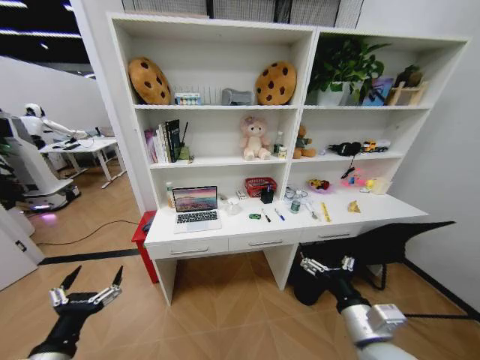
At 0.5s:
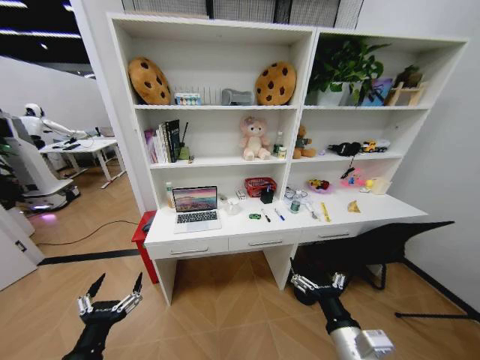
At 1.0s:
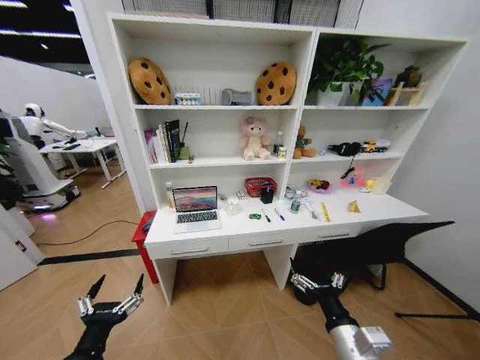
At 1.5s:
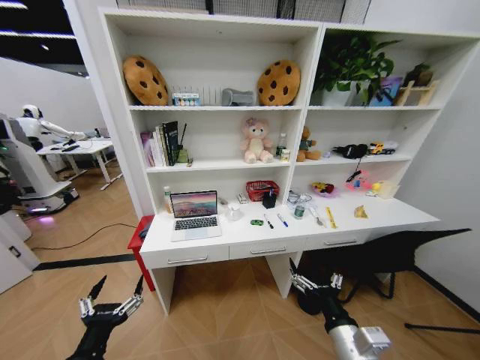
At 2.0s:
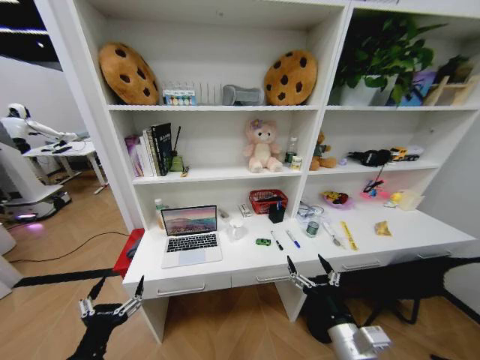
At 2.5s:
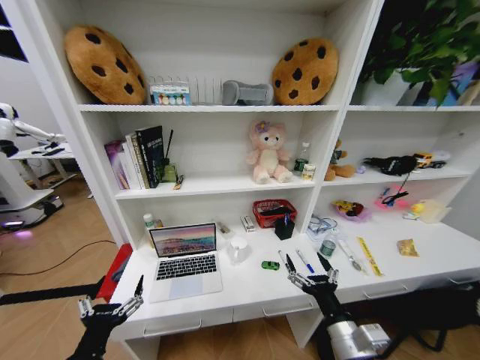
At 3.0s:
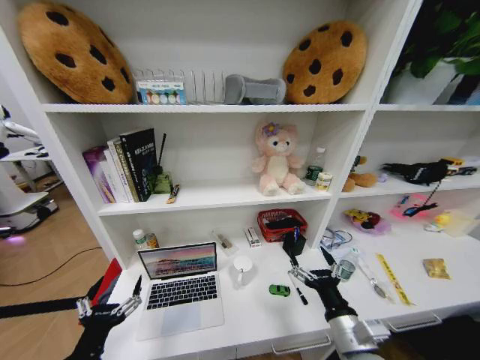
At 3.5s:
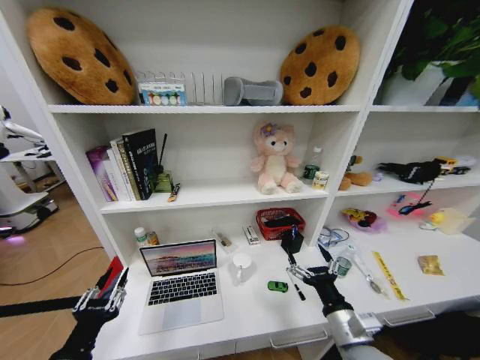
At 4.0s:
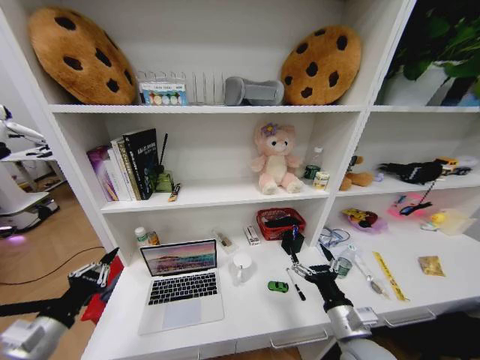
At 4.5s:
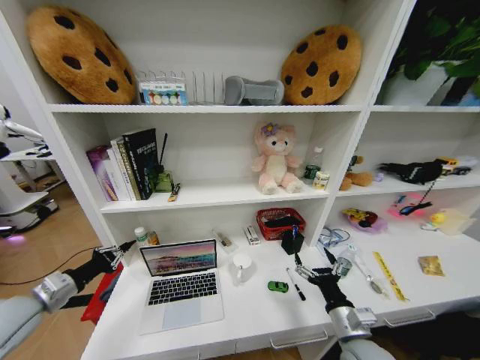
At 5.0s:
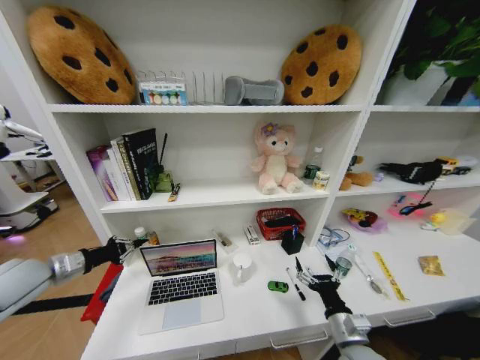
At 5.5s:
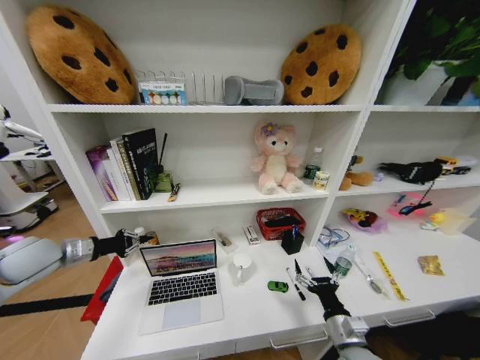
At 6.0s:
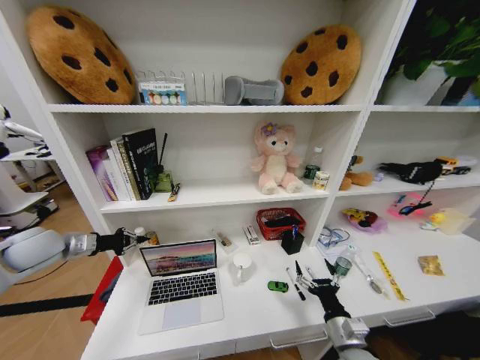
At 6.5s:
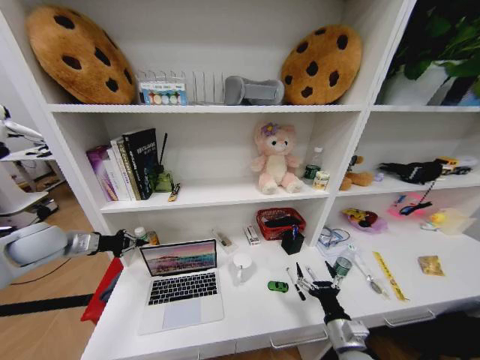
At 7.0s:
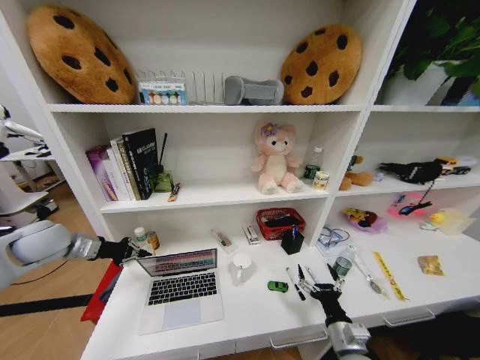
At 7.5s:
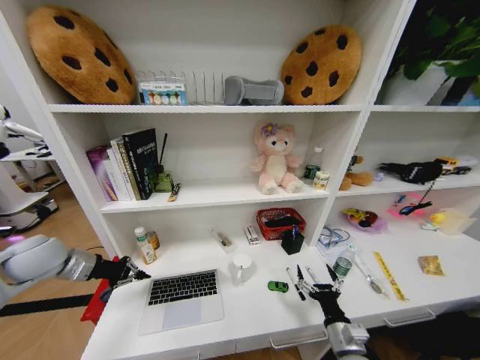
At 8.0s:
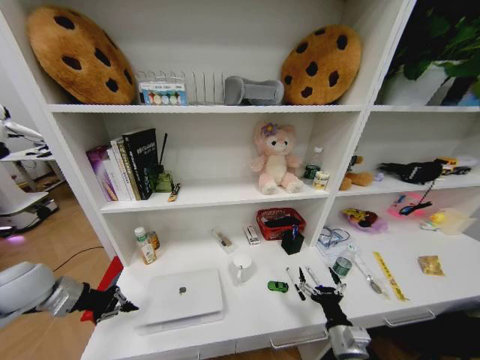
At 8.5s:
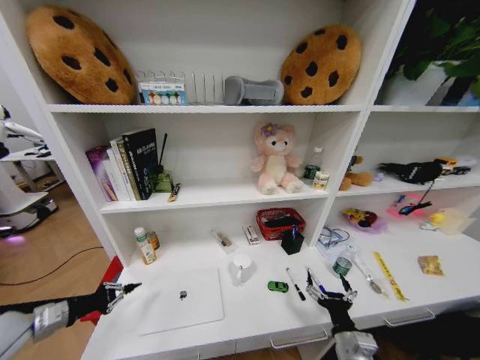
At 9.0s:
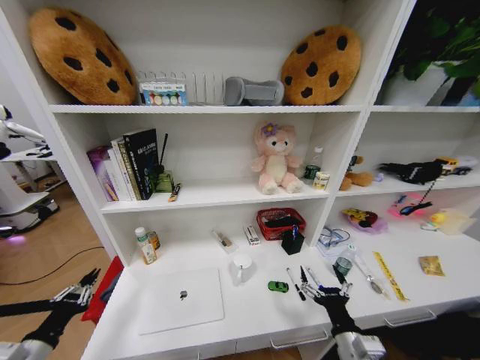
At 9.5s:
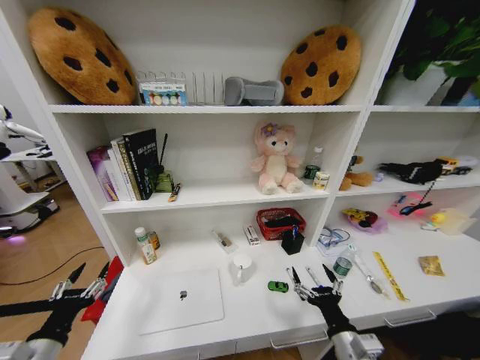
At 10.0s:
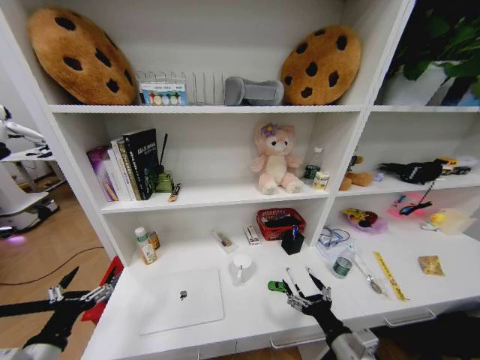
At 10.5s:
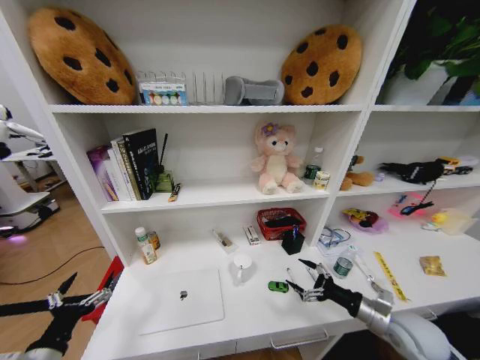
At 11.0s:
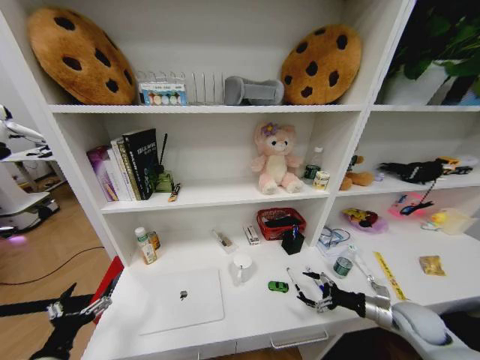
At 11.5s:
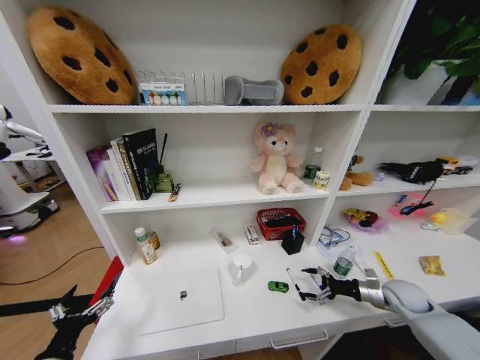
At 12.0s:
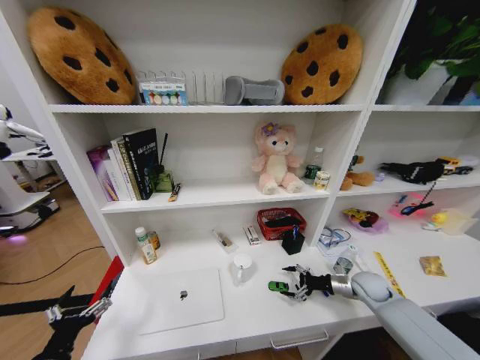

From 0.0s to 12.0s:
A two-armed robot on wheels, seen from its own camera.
Task of the whole recording: Organize the objects on the table.
From 2.0s to 4.0s: The right gripper changes place by some 5 cm. Meanwhile the left gripper heads to the left and forward, covering roughly 10 cm, and closes.
From 4.0s to 6.0s: The left gripper travels forward by roughly 25 cm, while the right gripper is displaced downward by some 5 cm.
From 6.0s to 8.0s: The left gripper moves backward, about 5 cm.
From 8.0s to 10.0s: The right gripper shifts roughly 5 cm upward. Meanwhile the left gripper shifts some 20 cm backward and to the right, and opens up.
From 10.0s to 12.0s: The right gripper shifts roughly 30 cm forward and to the right.

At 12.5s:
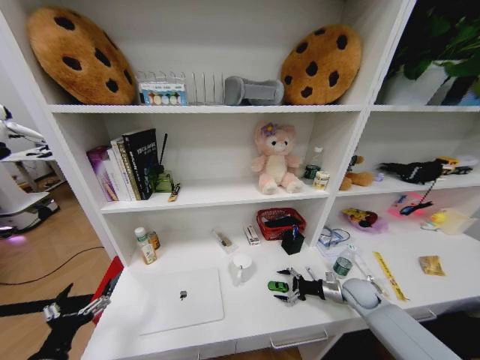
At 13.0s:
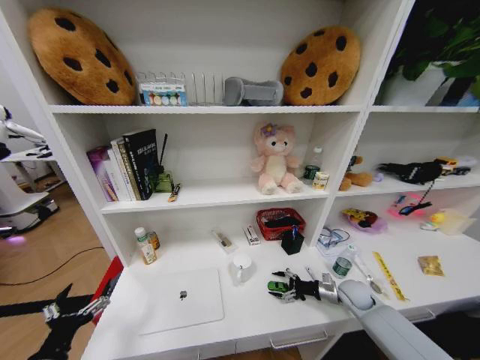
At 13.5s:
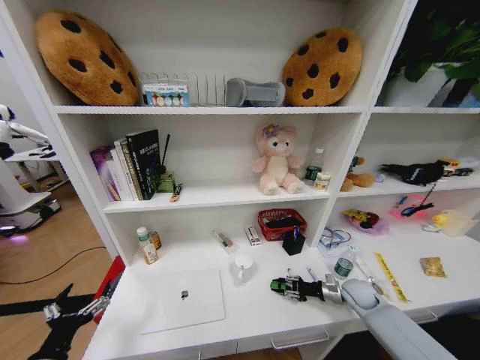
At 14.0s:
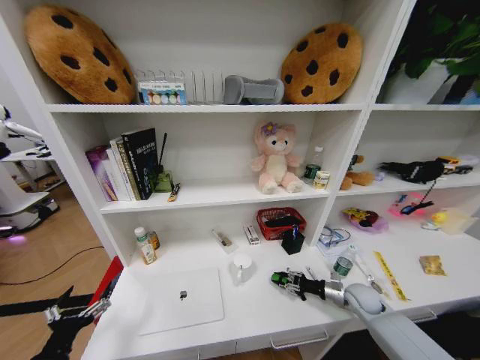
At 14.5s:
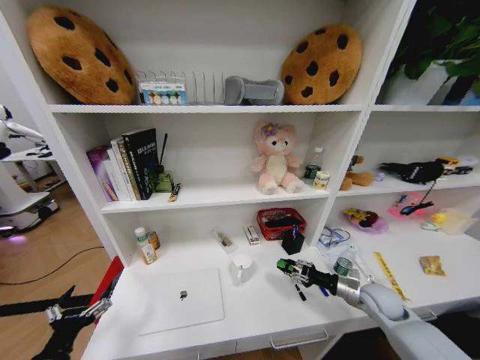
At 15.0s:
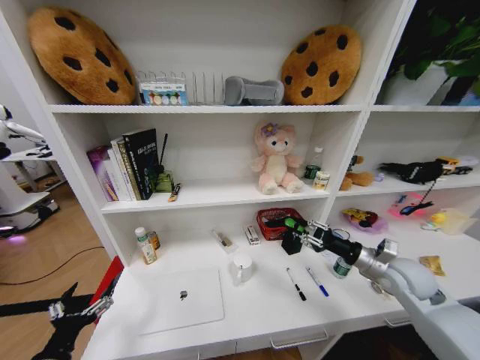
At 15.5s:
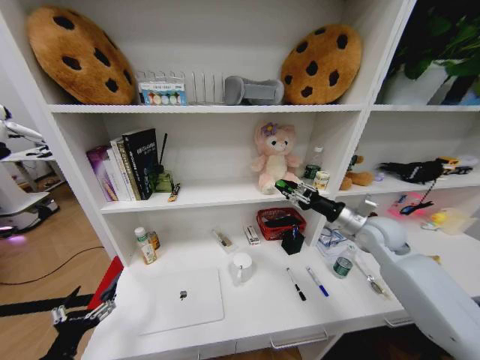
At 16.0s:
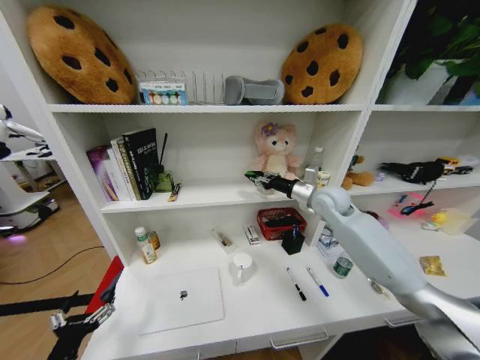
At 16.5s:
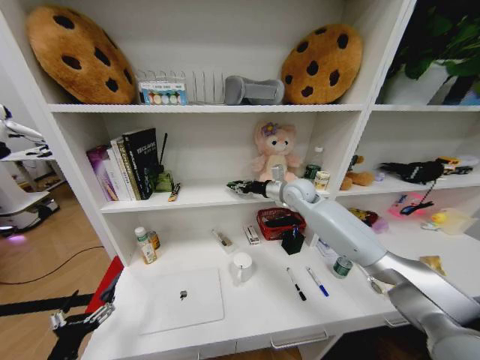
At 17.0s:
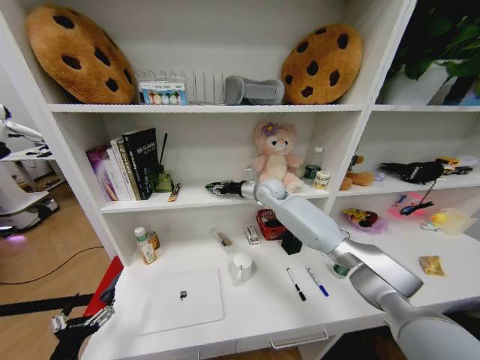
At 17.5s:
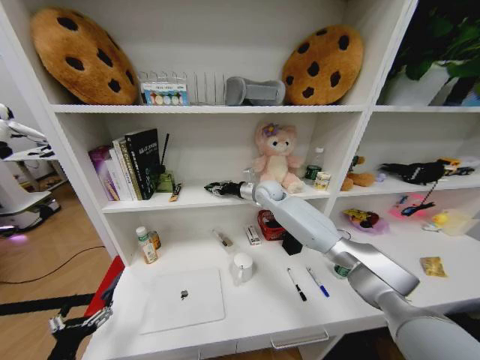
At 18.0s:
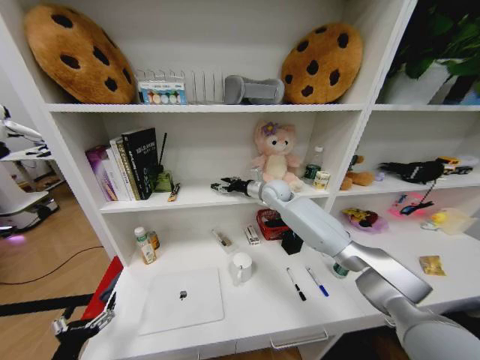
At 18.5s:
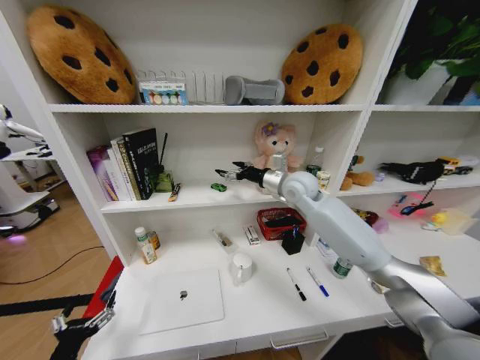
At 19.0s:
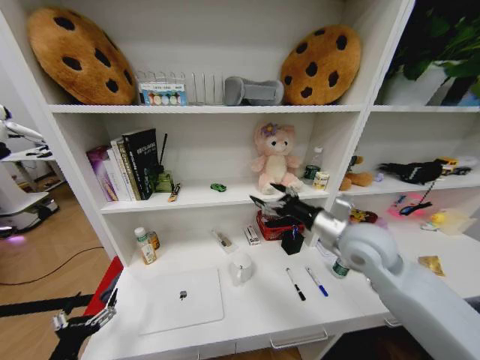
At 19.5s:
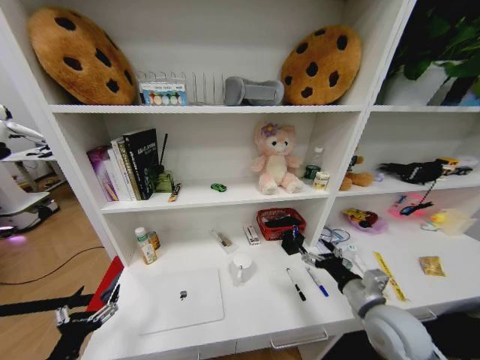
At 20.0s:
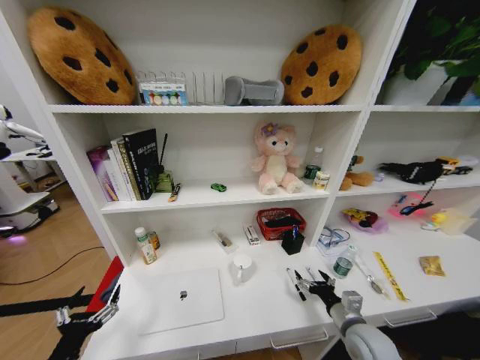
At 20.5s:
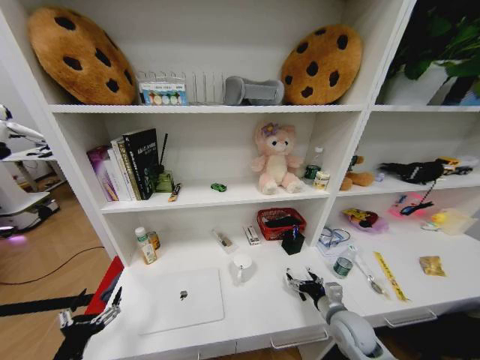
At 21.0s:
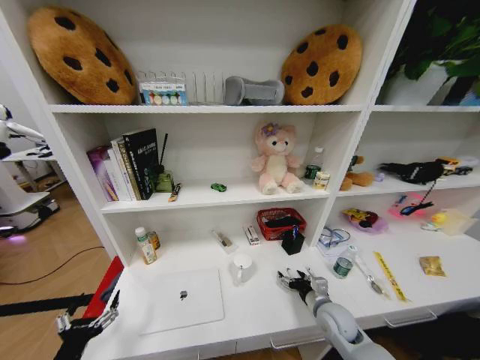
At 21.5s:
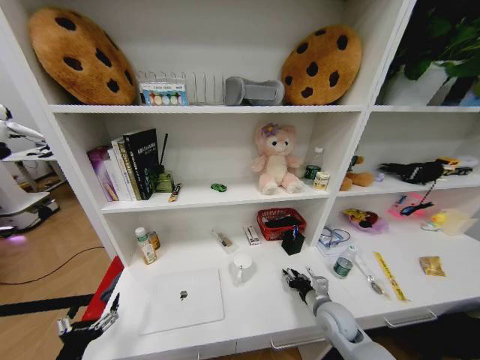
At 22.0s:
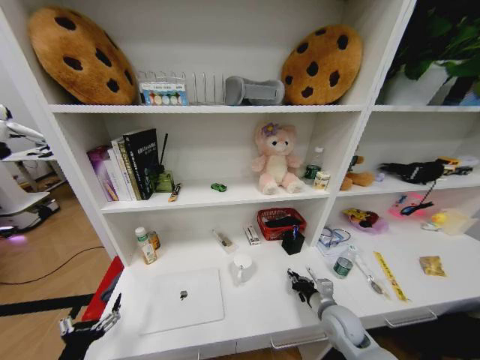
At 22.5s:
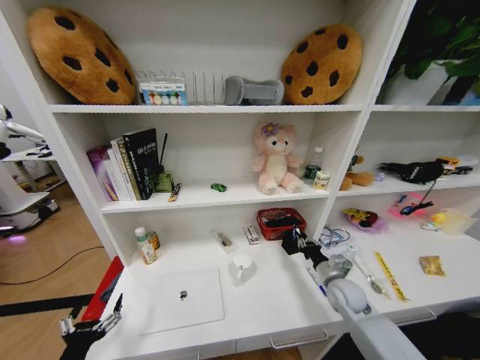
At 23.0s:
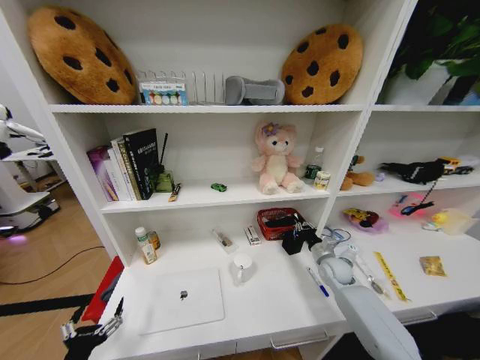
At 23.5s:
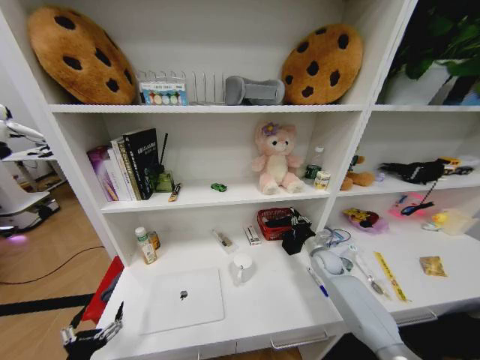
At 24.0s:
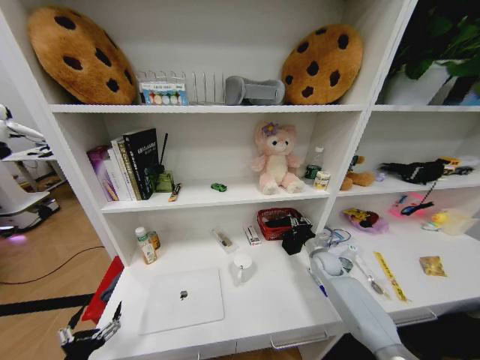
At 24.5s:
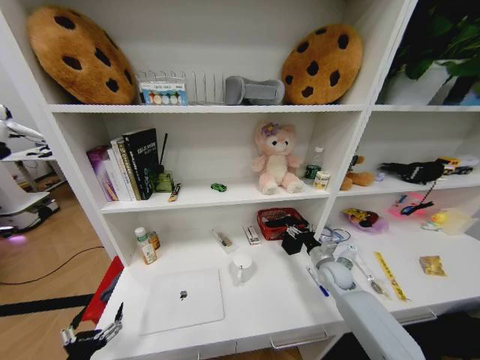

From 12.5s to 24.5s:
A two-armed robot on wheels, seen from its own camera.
Task of the whole recording: Organize the objects on the table.
From 12.5s to 14.5s: The right gripper travels upward by approximately 5 cm, and closes.
From 14.5s to 16.5s: The right gripper travels forward, upward and to the left by roughly 40 cm.
From 16.5s to 18.5s: The right gripper opens its fingers.
From 18.5s to 20.5s: The right gripper heads downward, backward and to the right, covering some 40 cm.
From 20.5s to 22.5s: The right gripper heads forward, covering roughly 10 cm, and closes its fingers.
From 22.5s to 24.5s: The right gripper heads forward, covering some 10 cm, and opens.

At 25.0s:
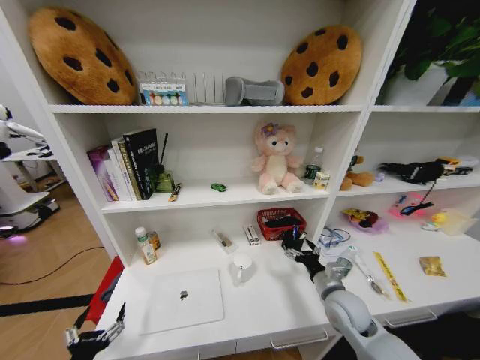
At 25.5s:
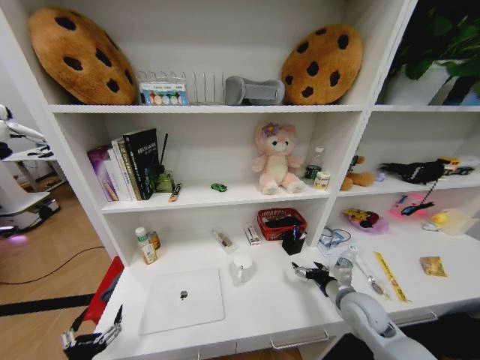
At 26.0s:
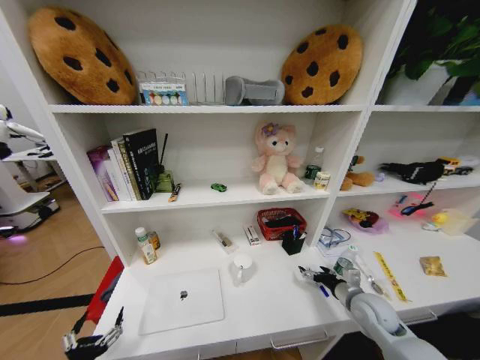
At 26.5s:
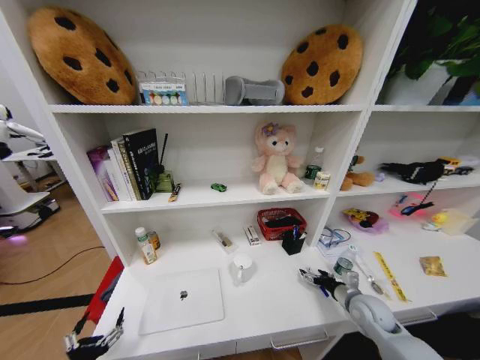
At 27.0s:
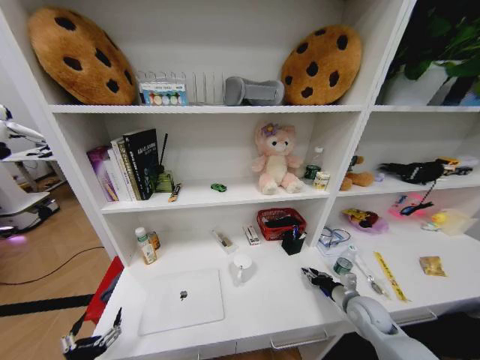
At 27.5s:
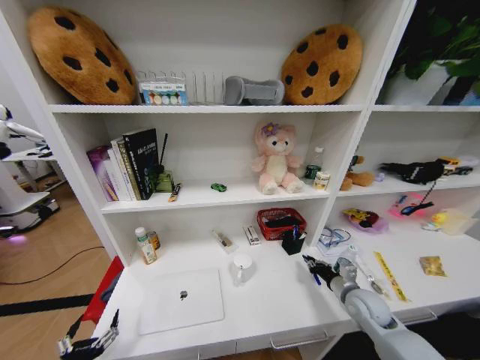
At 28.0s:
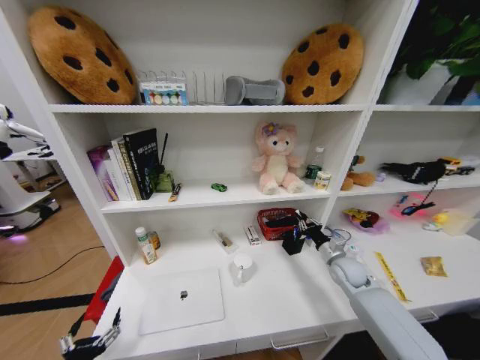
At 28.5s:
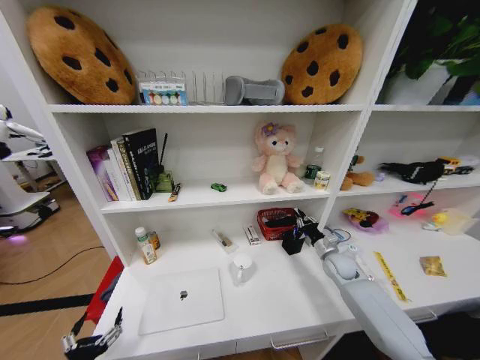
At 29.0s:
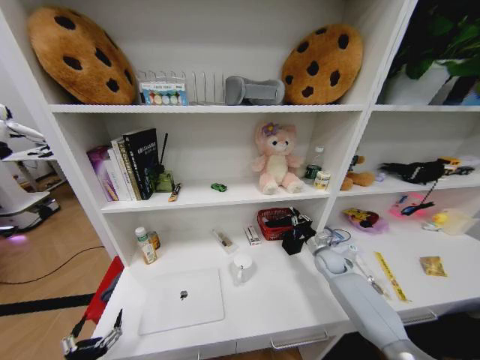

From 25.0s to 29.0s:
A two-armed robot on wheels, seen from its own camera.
Task of the whole recording: Organize the objects on the table.
From 25.0s to 27.0s: The right gripper travels to the right and downward by some 10 cm, and closes its fingers.
From 27.0s to 29.0s: The right gripper goes roughly 15 cm forward.
